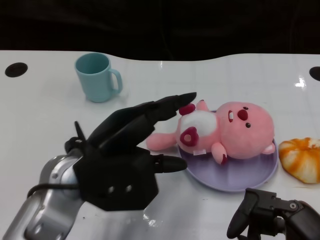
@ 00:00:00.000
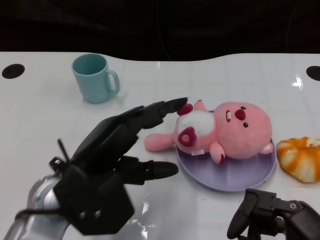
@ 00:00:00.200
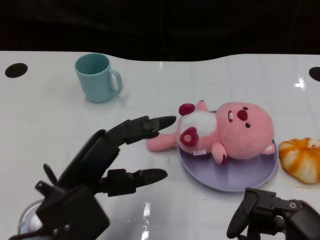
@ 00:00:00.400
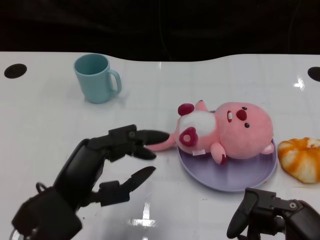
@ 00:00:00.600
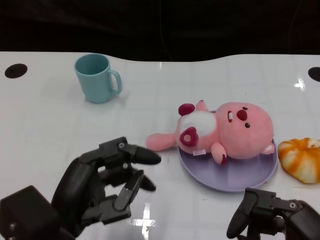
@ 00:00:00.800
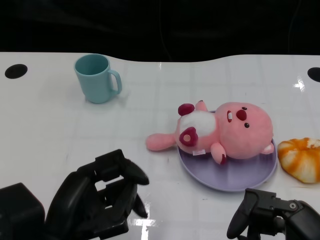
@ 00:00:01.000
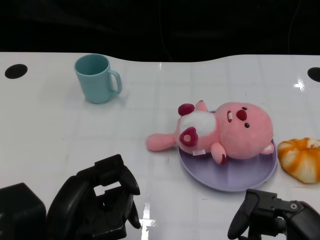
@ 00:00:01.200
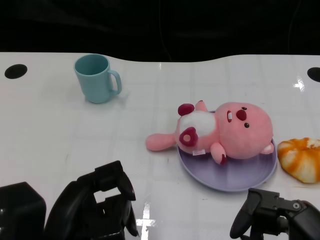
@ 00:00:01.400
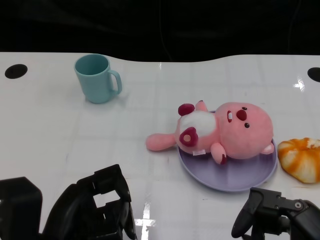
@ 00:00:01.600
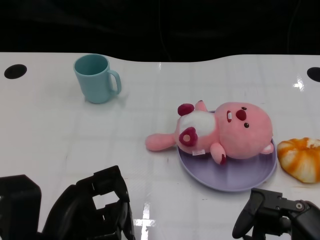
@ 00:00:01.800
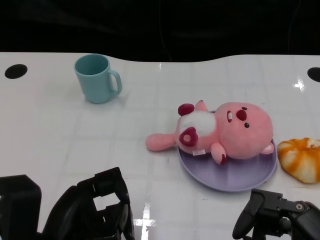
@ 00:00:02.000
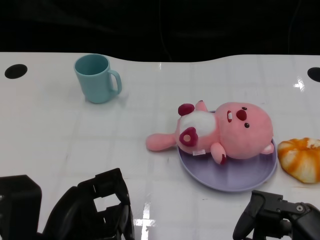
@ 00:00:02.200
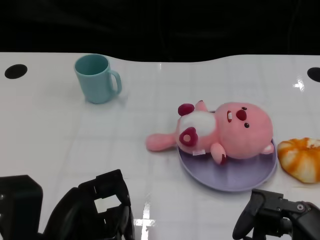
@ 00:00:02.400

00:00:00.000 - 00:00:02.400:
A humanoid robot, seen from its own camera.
Task of the whole recording: Pick up the doll on one side of the plate and place it into the plate.
00:00:00.000 - 00:00:01.200: The left hand is displaced backward by about 10 cm.
00:00:01.200 - 00:00:02.400: The hands stay close to where they were, moving slightly.
